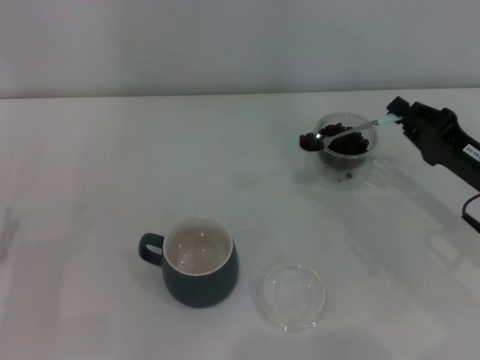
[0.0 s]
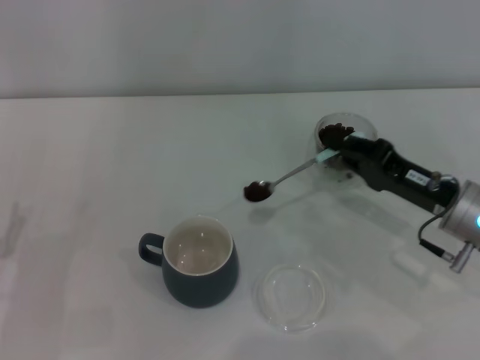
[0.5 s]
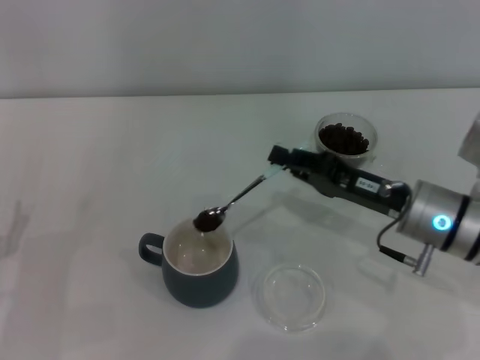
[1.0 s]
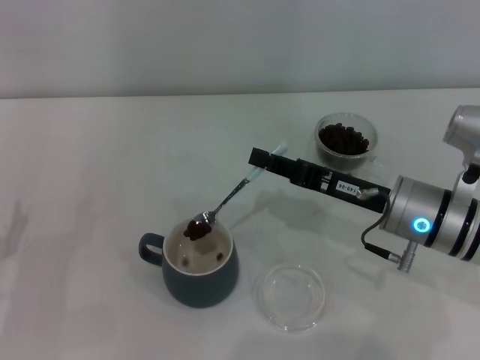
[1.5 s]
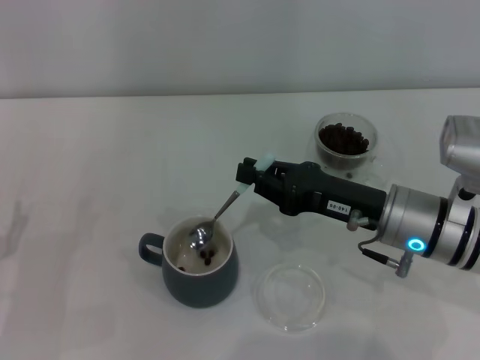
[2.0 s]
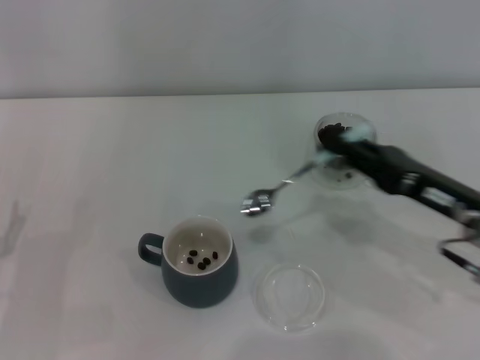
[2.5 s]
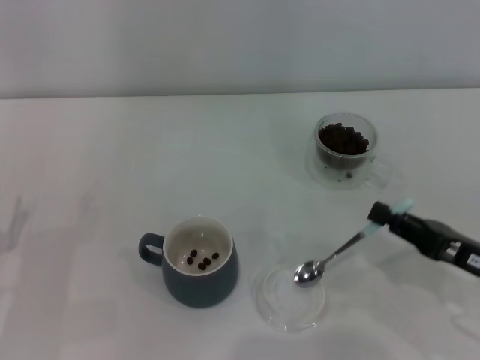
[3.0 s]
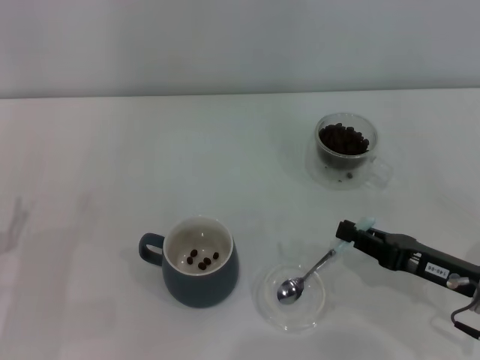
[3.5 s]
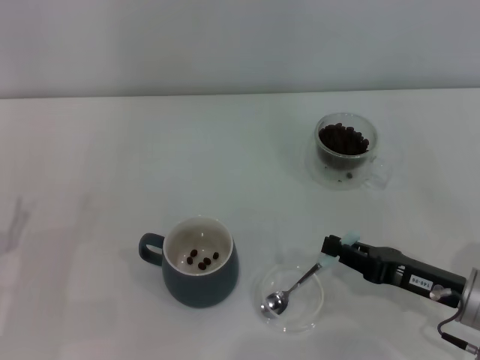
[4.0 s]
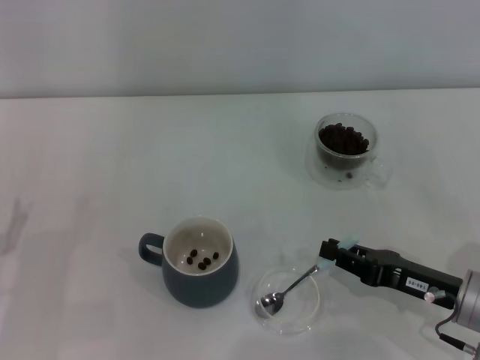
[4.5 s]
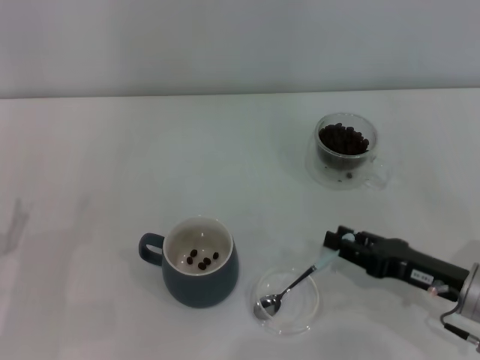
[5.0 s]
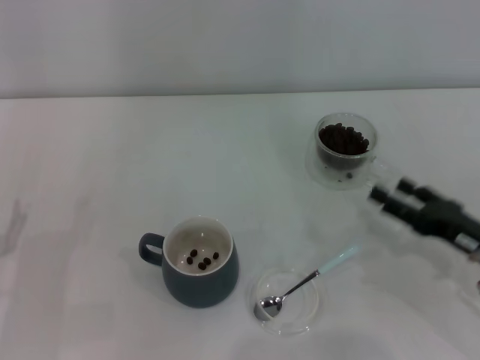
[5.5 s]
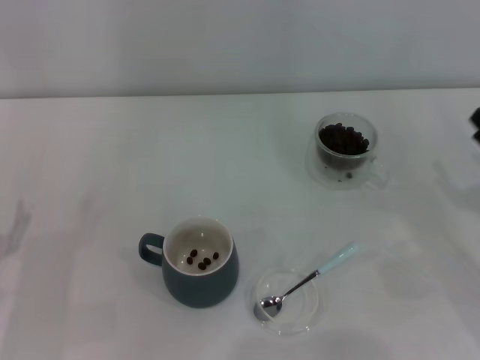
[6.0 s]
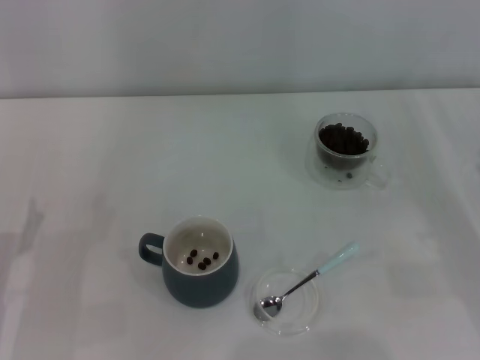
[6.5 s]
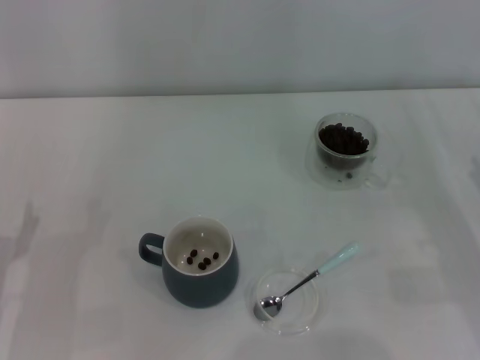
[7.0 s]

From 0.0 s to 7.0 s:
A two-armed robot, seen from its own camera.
Task of the whole recording: Use a blue spoon to take out the coffee beans from the glass and pour them into the gray cup.
Step, from 2.0 s to 5.0 s: Place the spoon back in its original place with the right gripper.
From 0.0 s to 2.0 s: The right gripper shifts about 10 cm to the left.
From 2.0 s to 3.5 s: The right gripper shifts roughly 10 cm to the right, backward and downward.
From 3.5 s to 5.0 s: The grippers stay close to where they were, moving slightly.
From 5.0 s to 7.0 s: The right gripper moves to the right, about 10 cm, and opens up.
